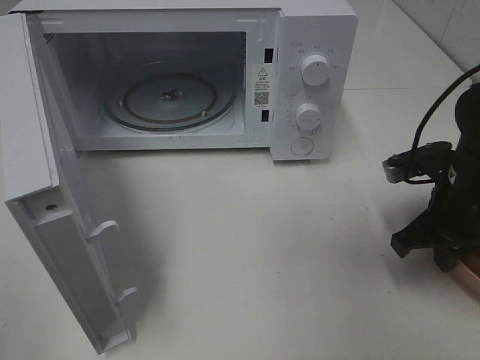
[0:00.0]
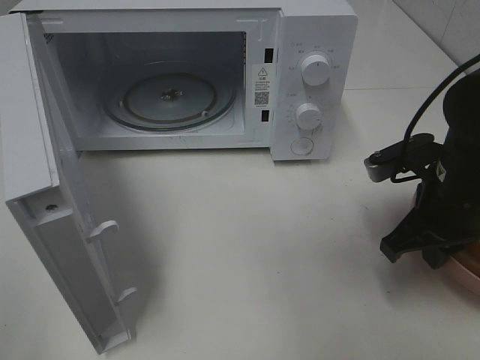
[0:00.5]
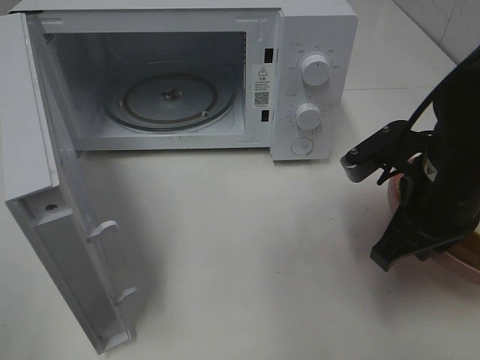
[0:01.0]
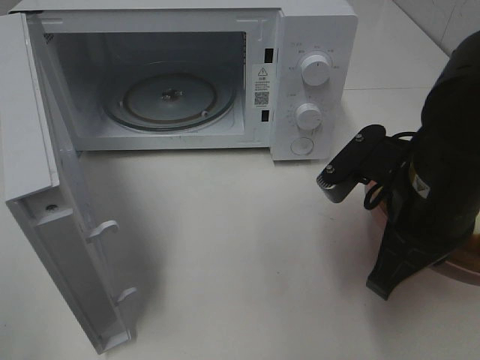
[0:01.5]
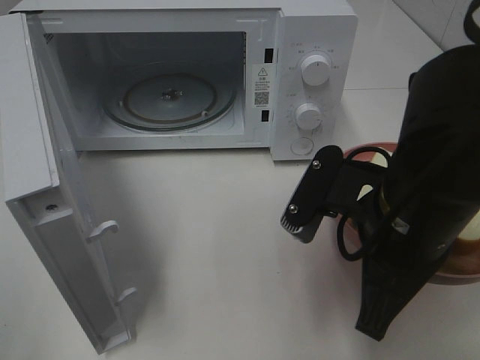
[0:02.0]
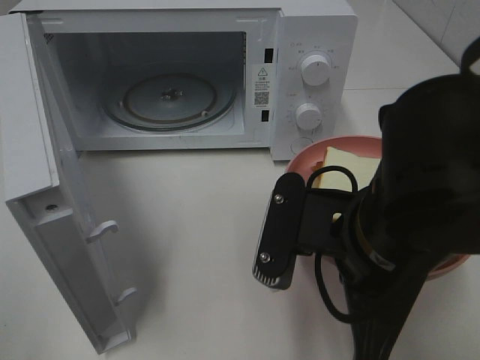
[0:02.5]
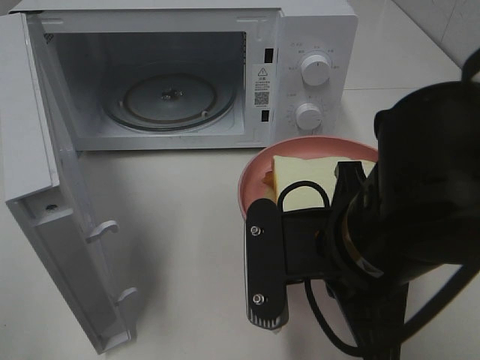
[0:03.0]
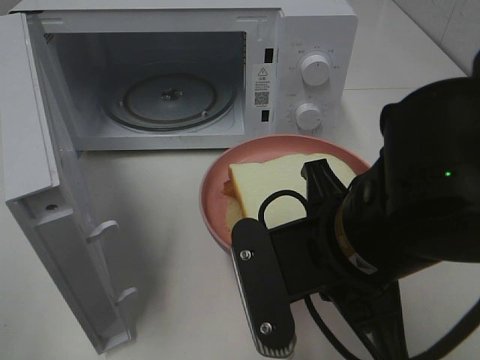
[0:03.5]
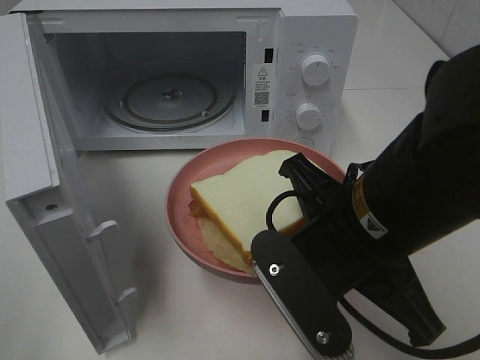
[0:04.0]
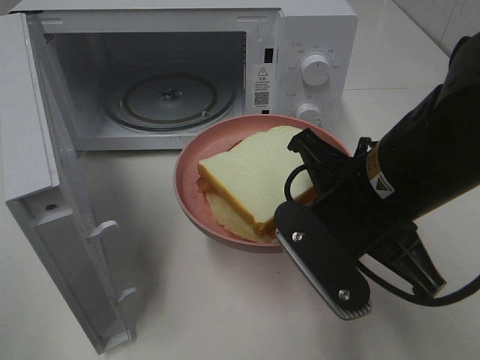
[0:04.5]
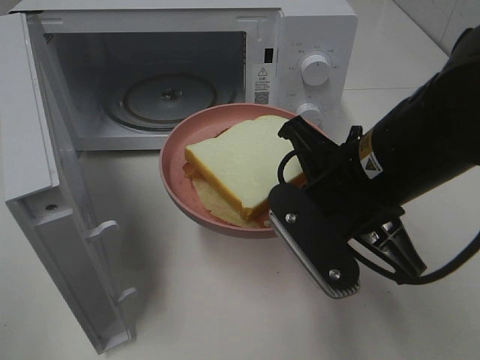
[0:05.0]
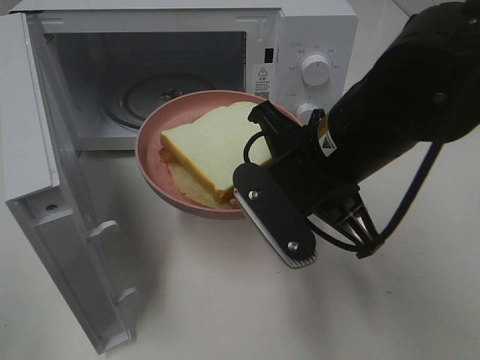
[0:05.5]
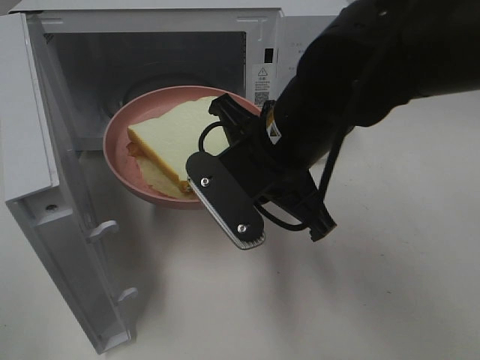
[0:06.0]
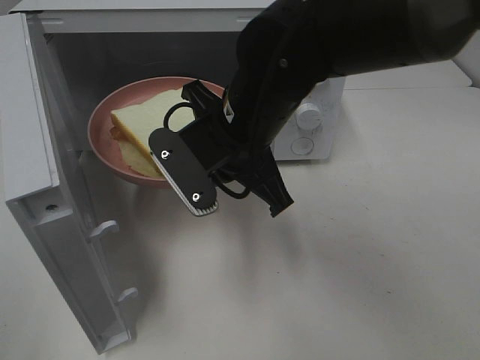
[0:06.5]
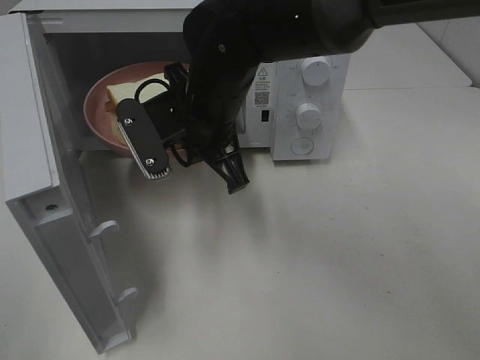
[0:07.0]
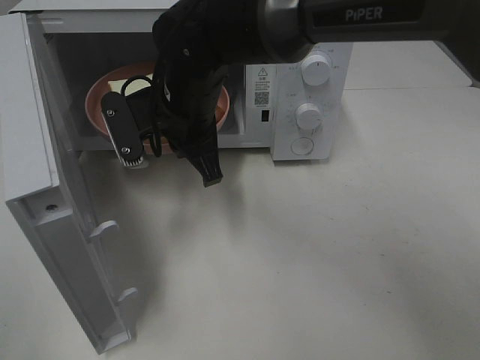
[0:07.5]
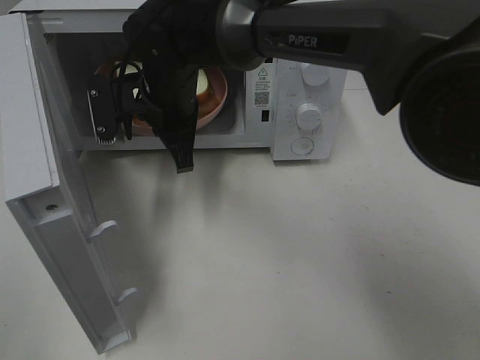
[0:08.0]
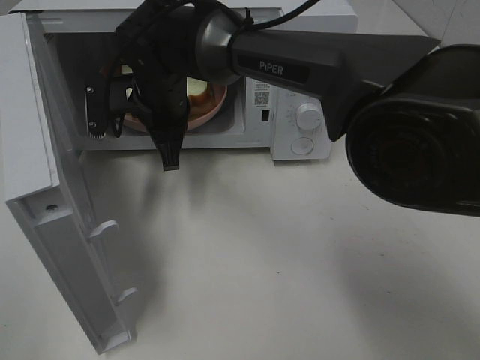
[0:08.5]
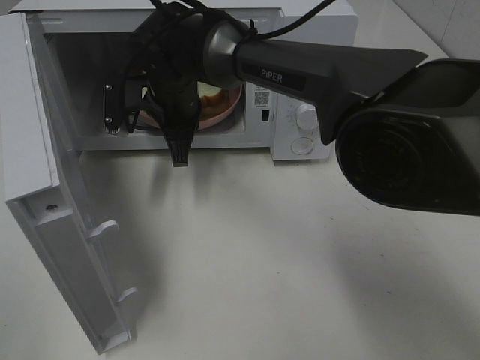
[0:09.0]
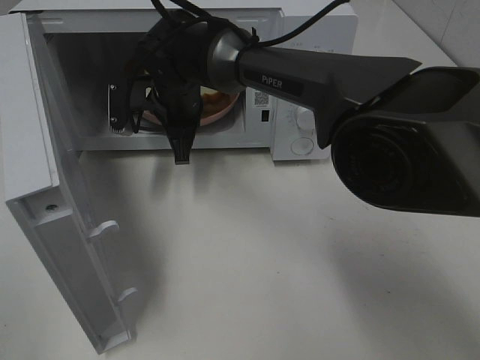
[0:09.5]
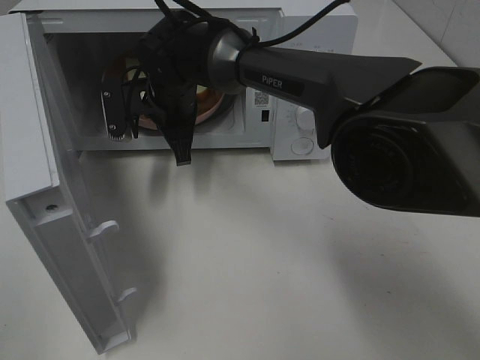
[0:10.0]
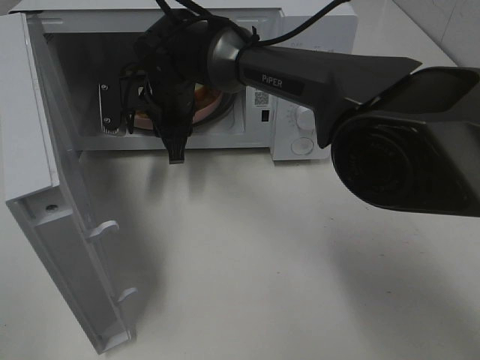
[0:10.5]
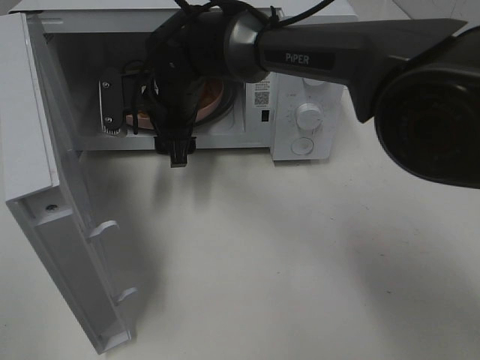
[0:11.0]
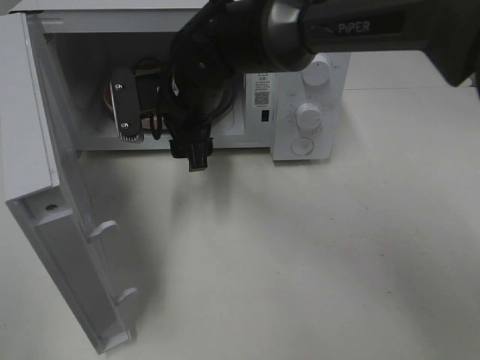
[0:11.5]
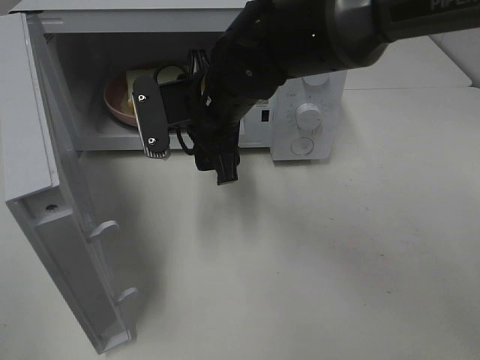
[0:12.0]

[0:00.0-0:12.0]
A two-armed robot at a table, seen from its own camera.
Task of the whole recording: Heat Sandwich.
Step, 0.0 to 11.5 s: Right hand: place the plate in the microwave.
0.0 to 2.0 s: The right gripper moves to the left, backward and upward, some 15 cm.
4.0 to 6.0 s: The right gripper travels forward and to the left by approximately 10 cm.
6.0 to 8.0 s: The right gripper is displaced forward and to the left by roughly 15 cm.
8.0 to 10.0 s: The right gripper ends up approximately 5 cm from where it was.
10.0 to 12.0 s: The right gripper moves backward and to the right, approximately 10 cm, and opens its fingers.

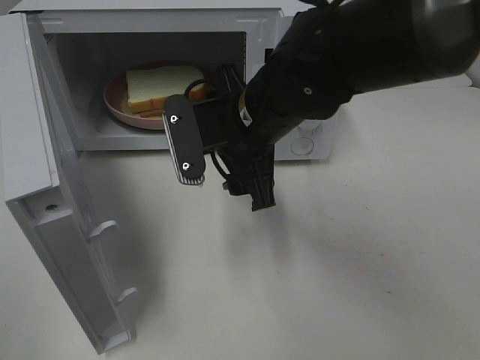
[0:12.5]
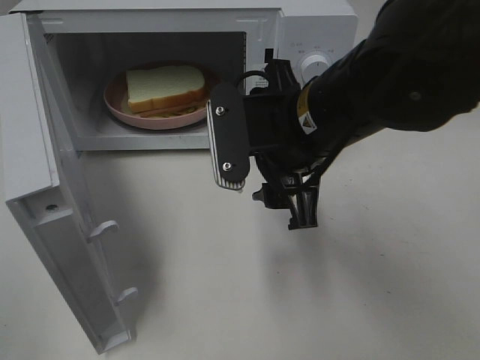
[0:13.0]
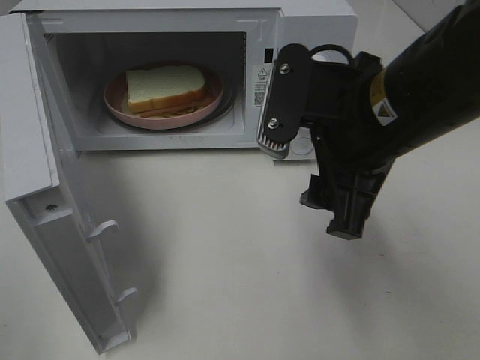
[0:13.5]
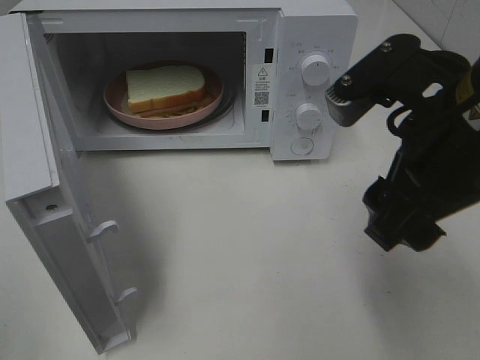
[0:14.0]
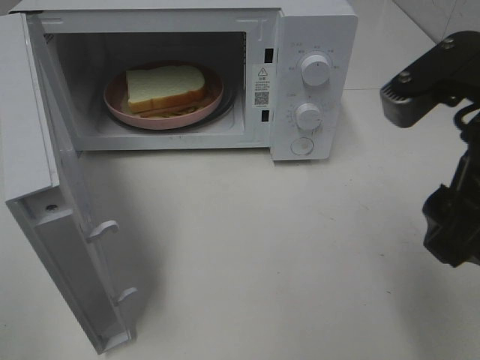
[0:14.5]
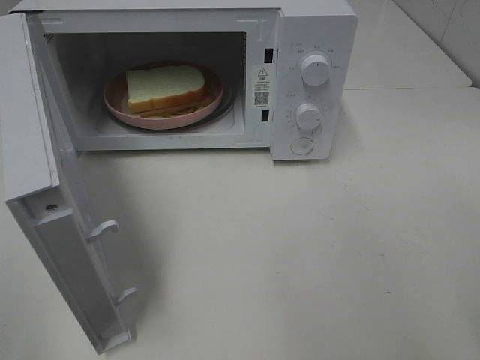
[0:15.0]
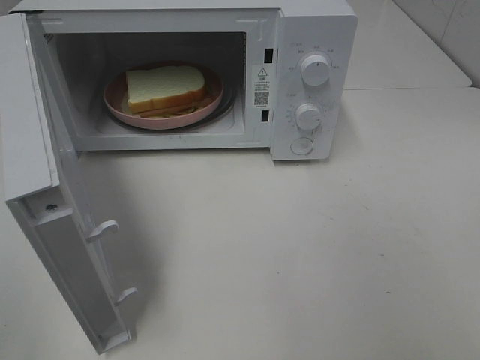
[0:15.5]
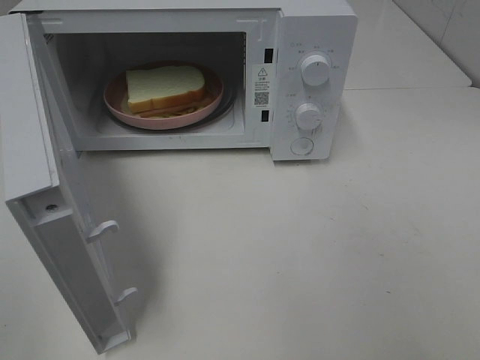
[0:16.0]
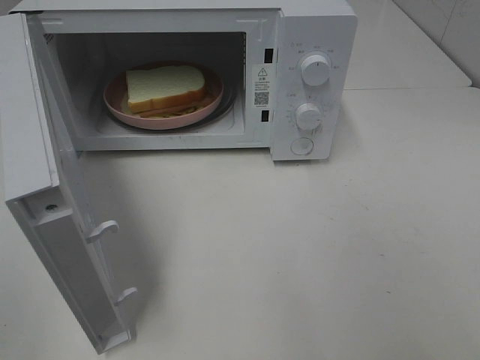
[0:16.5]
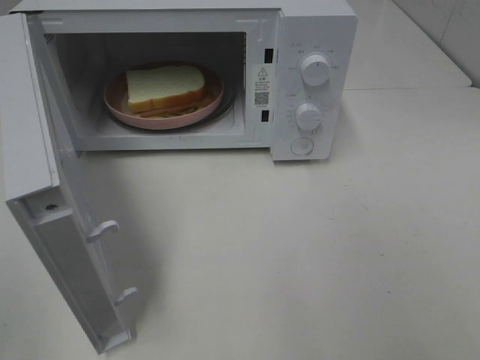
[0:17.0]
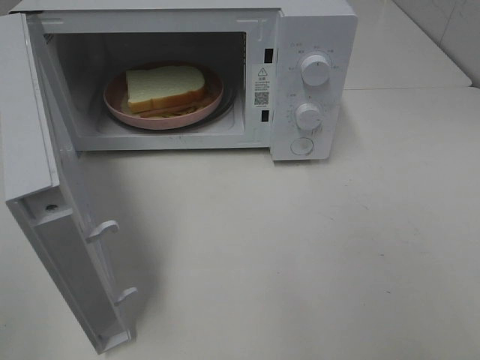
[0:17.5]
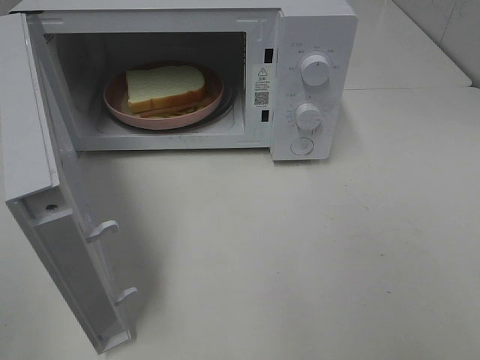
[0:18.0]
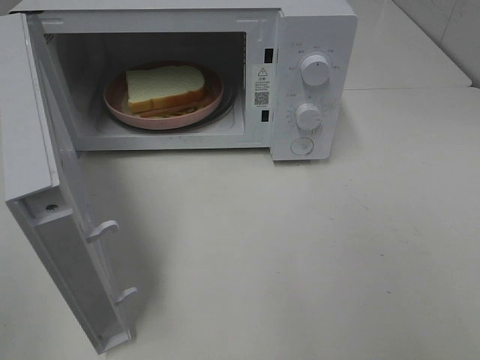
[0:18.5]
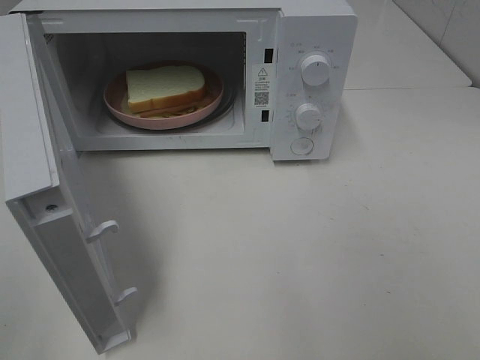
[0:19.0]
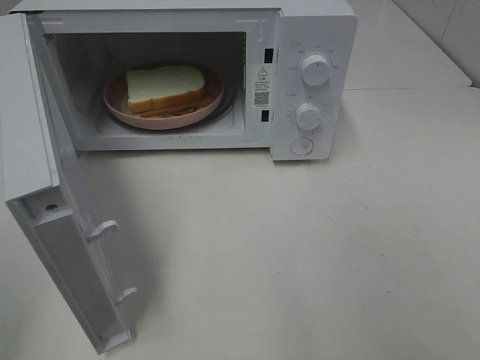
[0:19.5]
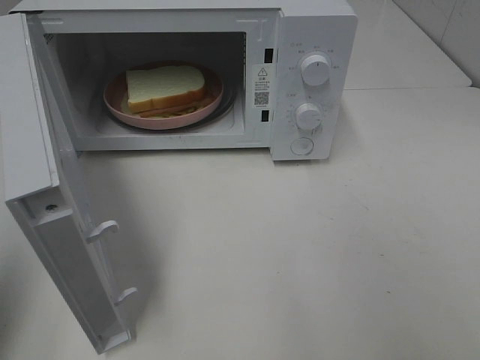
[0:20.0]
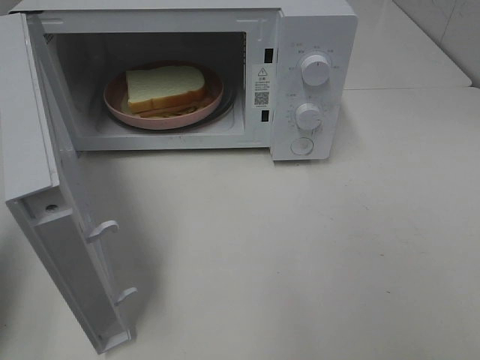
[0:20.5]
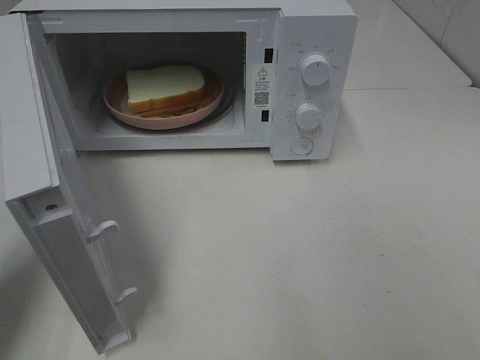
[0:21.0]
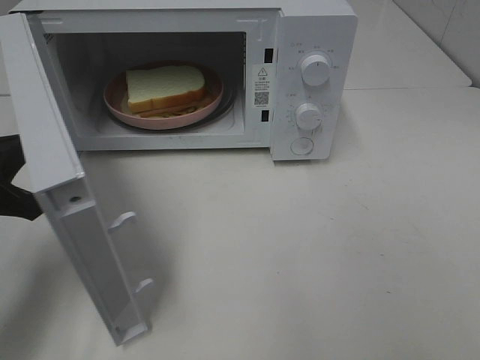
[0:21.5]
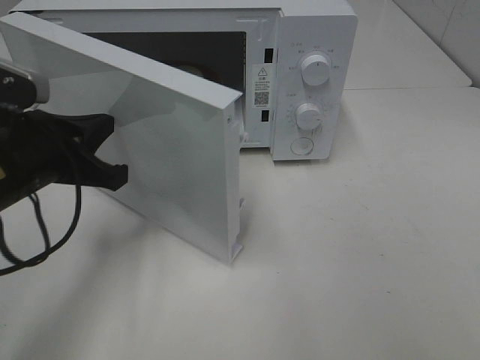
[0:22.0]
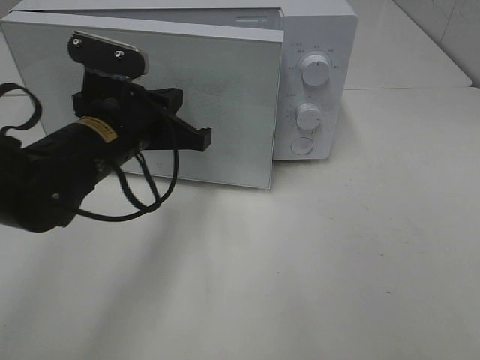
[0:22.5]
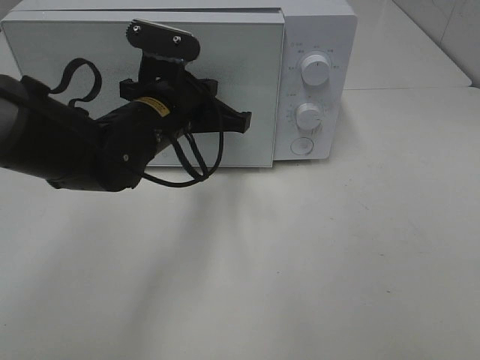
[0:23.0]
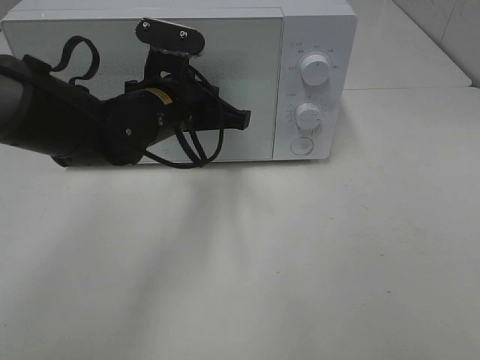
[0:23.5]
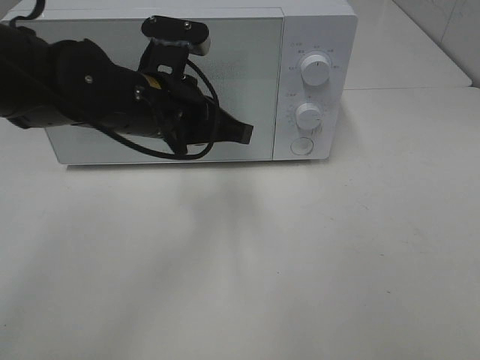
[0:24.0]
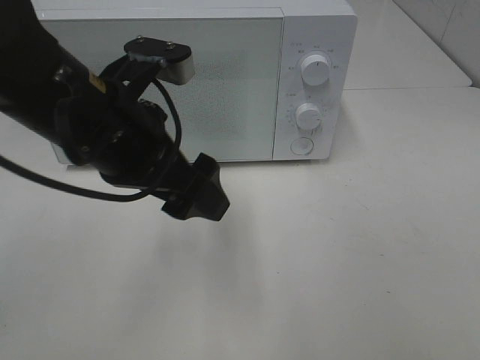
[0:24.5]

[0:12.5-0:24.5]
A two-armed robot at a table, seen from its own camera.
Task of the whole recording: Heat Sandwich.
Step, 12.5 to 24.0 s: Left hand: close the microwave door.
12.5 to 14.5 s: The right gripper travels to the right, backward and upward by roughly 25 cm.
14.5 to 16.5 s: The right gripper moves backward and to the right, roughly 20 cm.
16.5 to 18.5 s: Neither gripper changes place.
18.5 to 20.5 s: The left gripper travels forward by about 15 cm, and closes.
20.5 to 22.5 s: The left gripper travels to the right and forward by roughly 25 cm.
22.5 to 24.5 s: The left gripper moves upward and backward, approximately 10 cm, and opens its fingers.

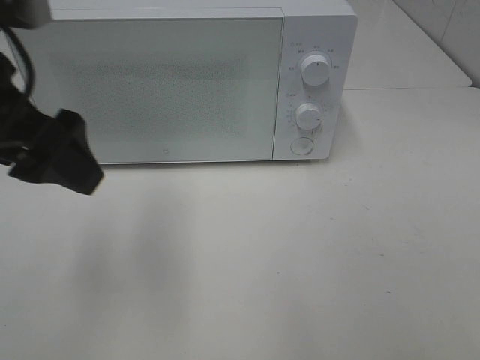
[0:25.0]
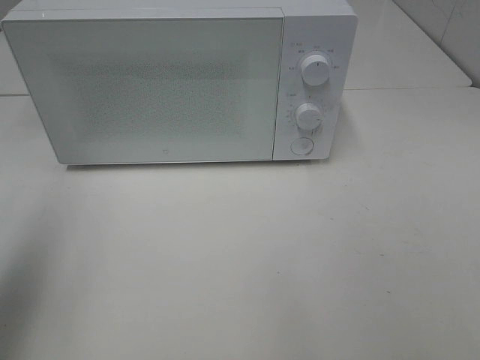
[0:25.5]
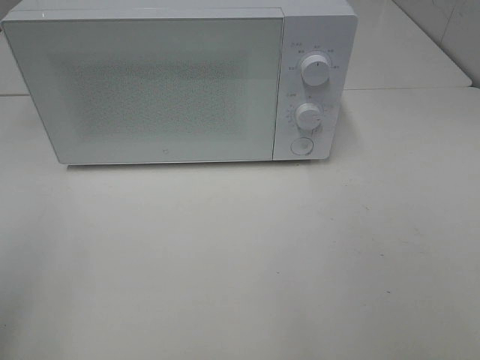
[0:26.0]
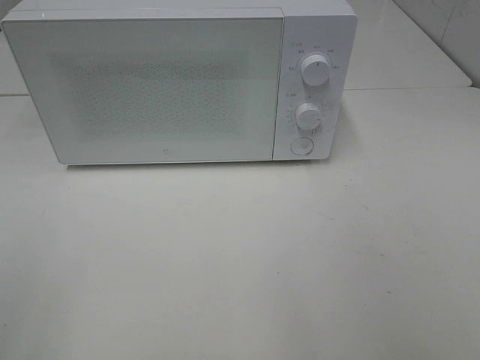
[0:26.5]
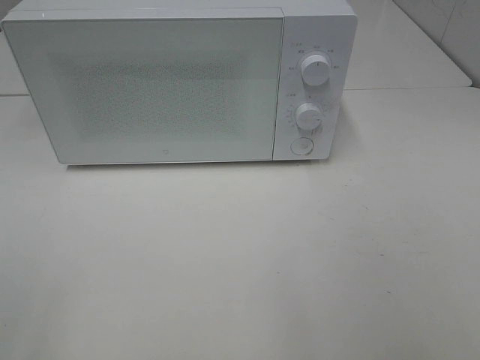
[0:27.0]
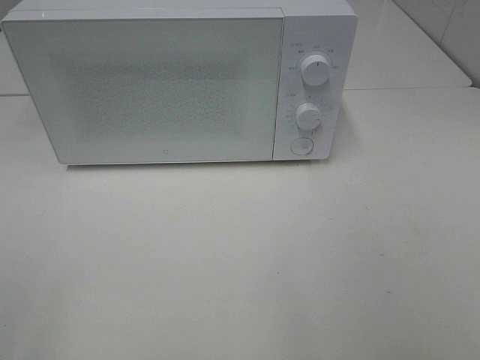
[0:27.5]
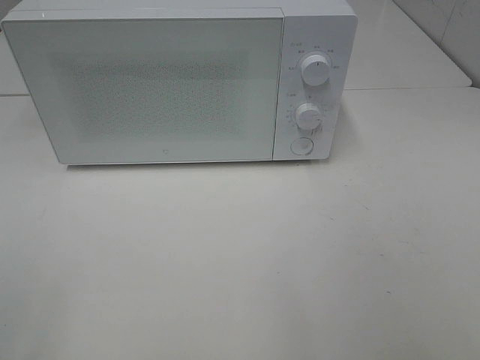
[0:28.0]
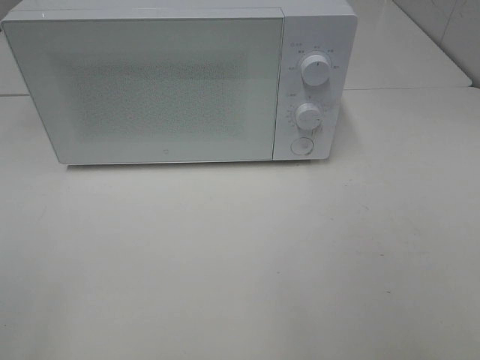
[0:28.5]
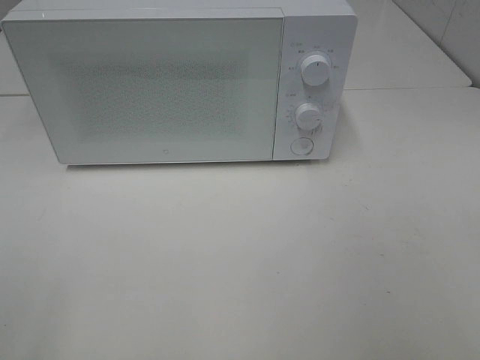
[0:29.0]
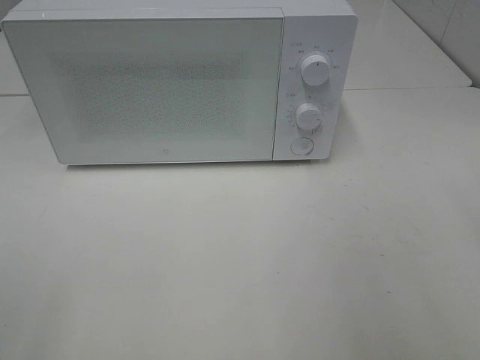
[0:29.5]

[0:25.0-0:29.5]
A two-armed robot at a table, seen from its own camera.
Task of the whole recording: Heat Sandwich.
25.0 to 27.0 s: The left gripper goes about 25 cm backward and to the left.
